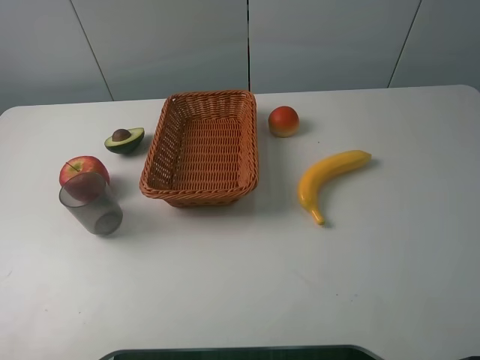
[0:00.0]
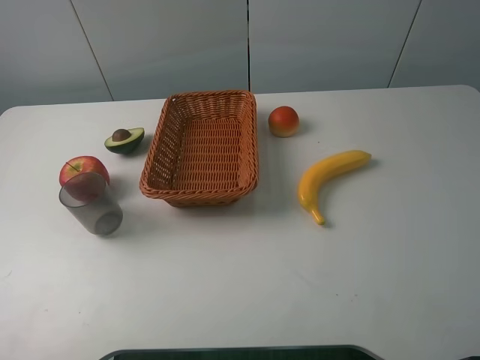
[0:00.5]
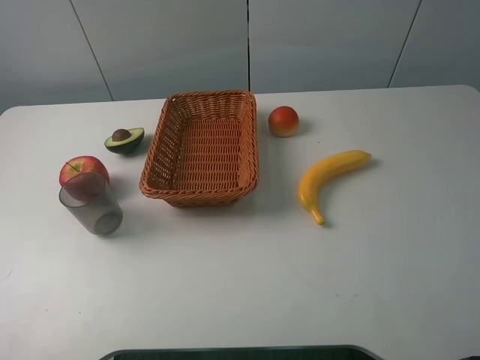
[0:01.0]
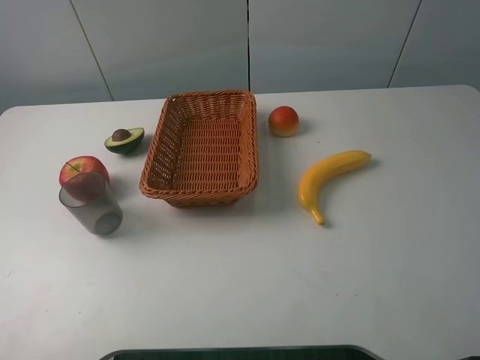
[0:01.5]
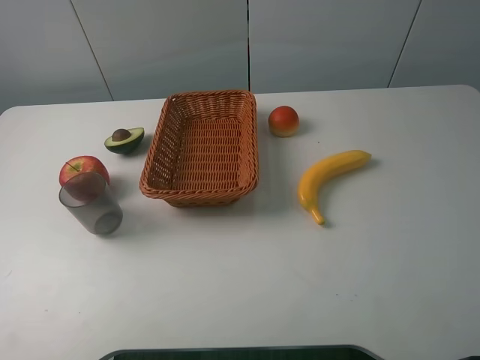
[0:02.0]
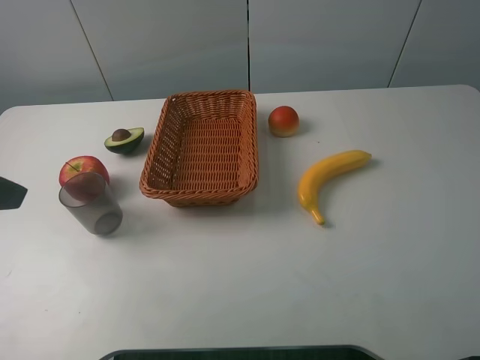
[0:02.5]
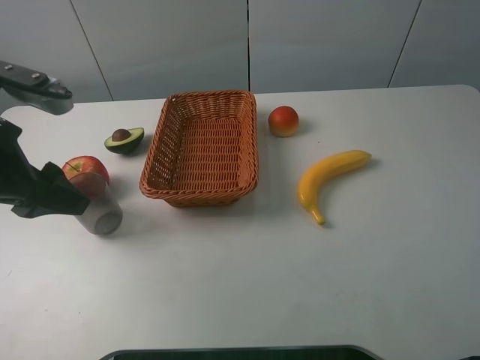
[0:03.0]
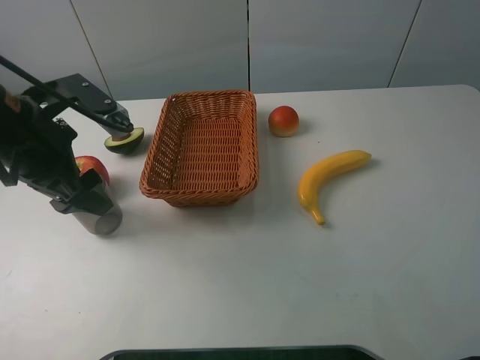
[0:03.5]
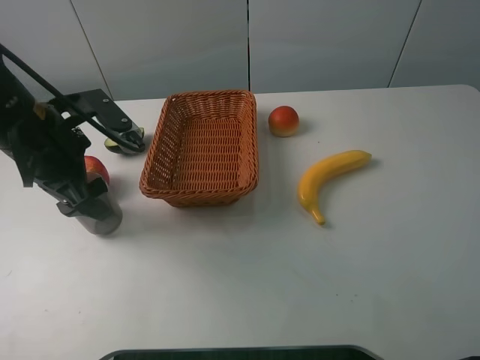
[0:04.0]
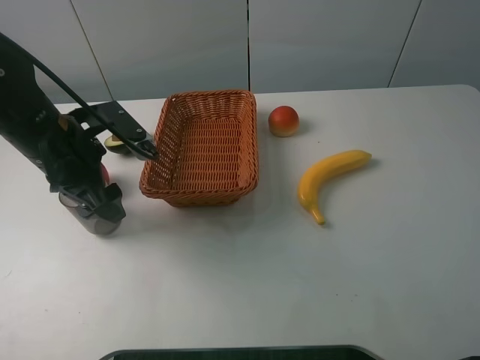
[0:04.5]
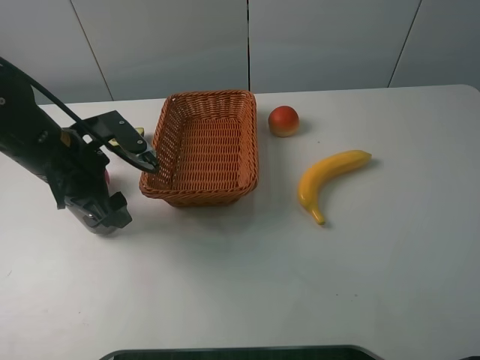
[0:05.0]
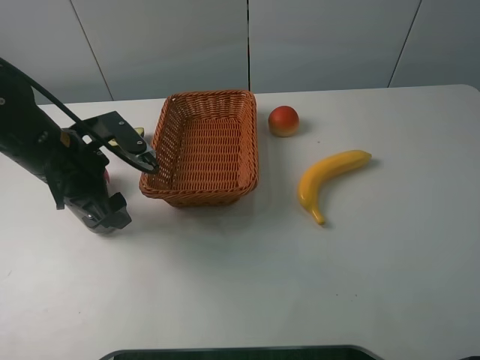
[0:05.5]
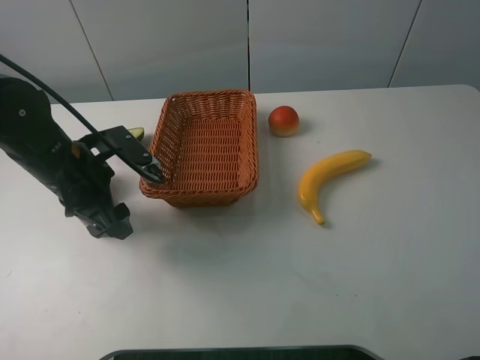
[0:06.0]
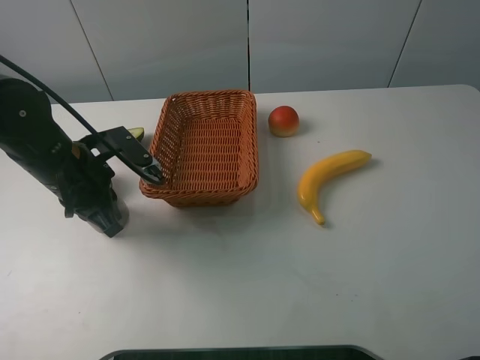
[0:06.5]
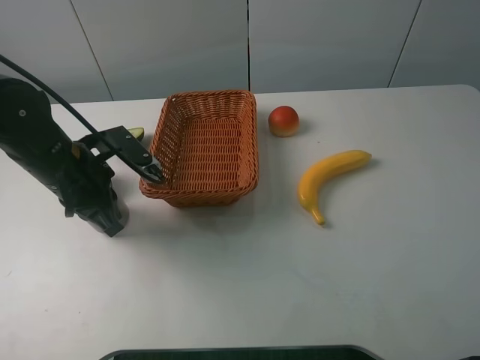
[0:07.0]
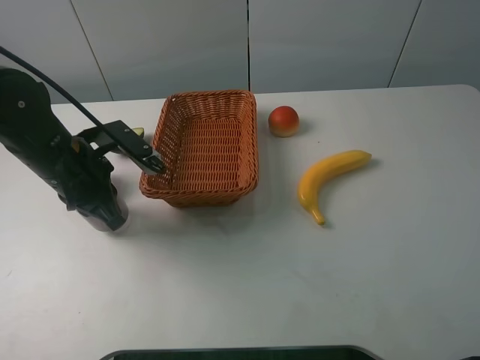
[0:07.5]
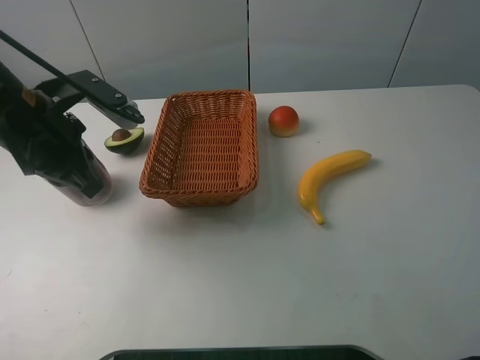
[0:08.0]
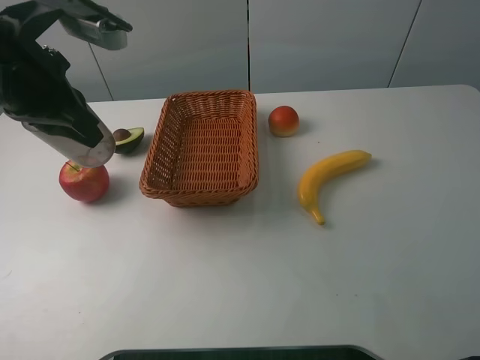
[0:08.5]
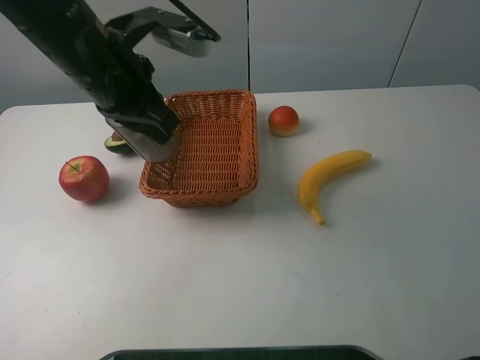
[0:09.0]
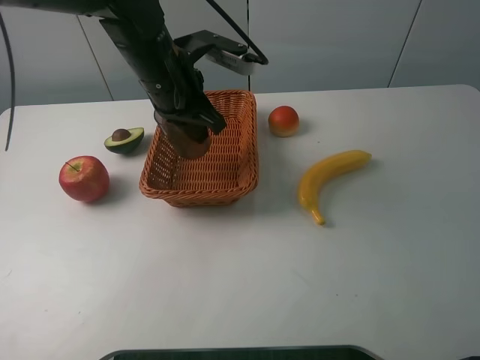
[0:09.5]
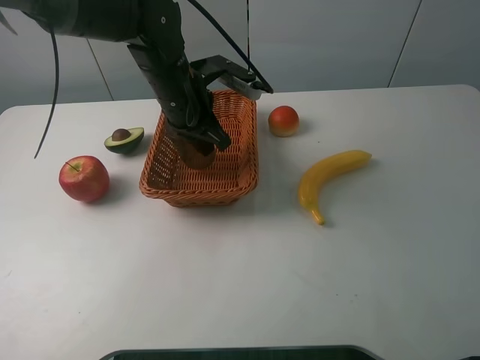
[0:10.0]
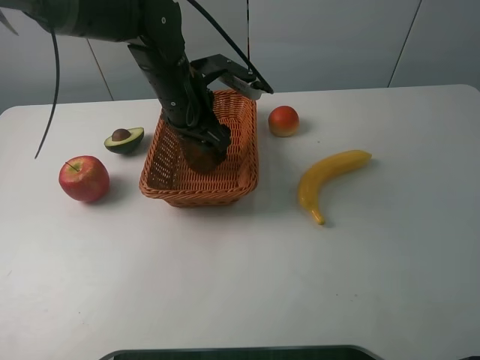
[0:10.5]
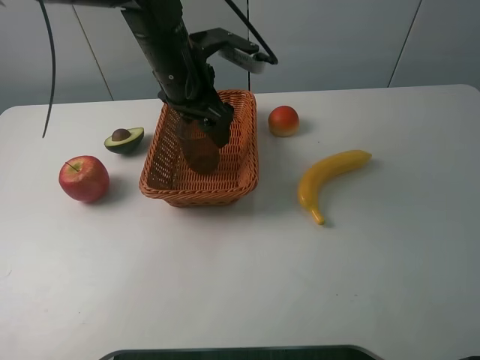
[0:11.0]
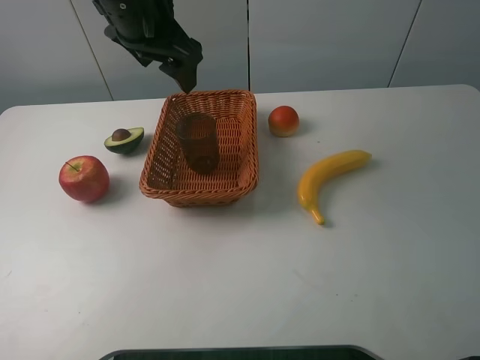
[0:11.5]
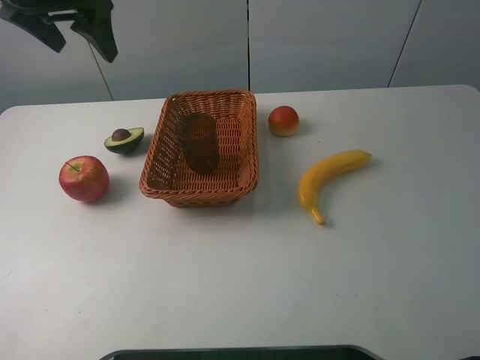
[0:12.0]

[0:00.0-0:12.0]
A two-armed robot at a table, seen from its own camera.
0:02.0 to 0:04.0: The left gripper goes approximately 25 cm forward, downward and to the right.
0:04.0 to 0:06.0: The left gripper shifts some 5 cm downward.
0:06.0 to 0:08.0: The left gripper travels upward by some 10 cm, and closes up.
0:08.0 to 0:10.0: The left gripper is displaced to the right and forward by roughly 20 cm.
0:10.0 to 0:12.0: The left gripper shifts about 20 cm upward and to the left, and opens.
